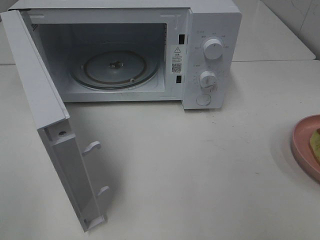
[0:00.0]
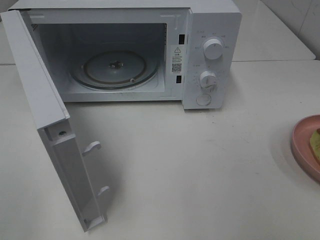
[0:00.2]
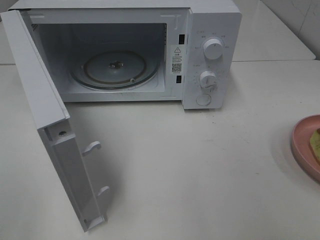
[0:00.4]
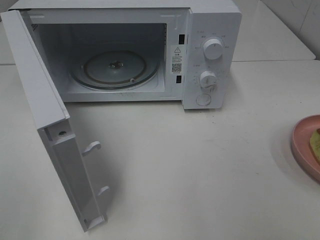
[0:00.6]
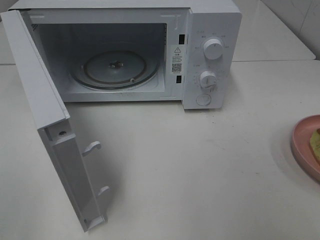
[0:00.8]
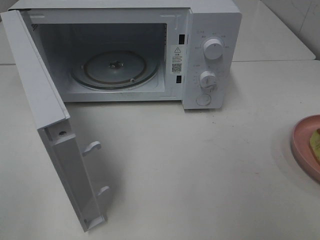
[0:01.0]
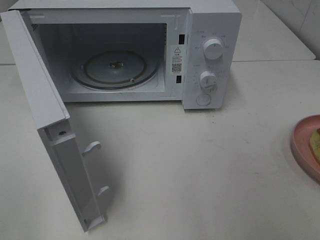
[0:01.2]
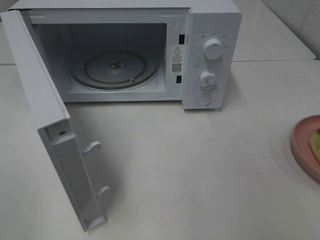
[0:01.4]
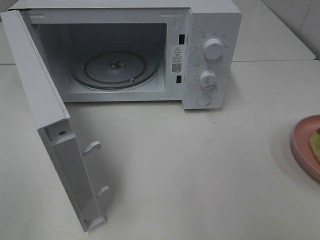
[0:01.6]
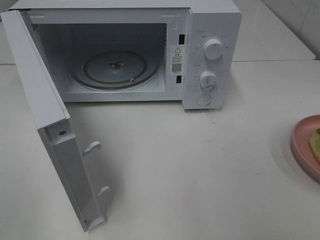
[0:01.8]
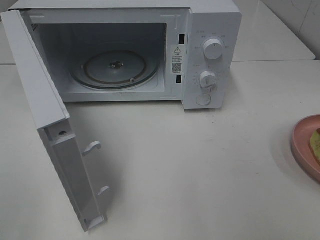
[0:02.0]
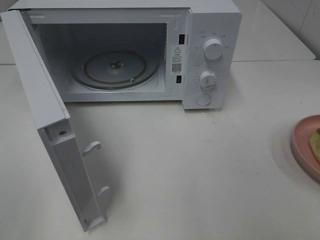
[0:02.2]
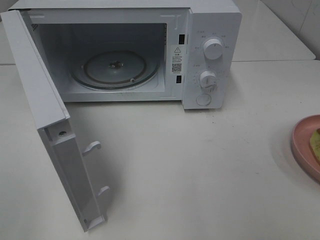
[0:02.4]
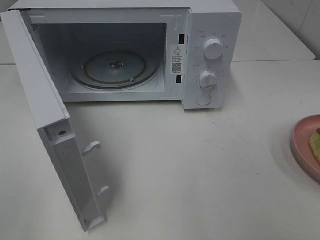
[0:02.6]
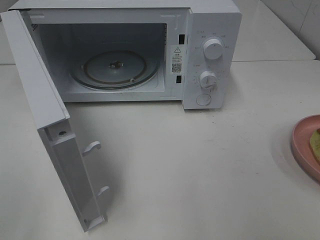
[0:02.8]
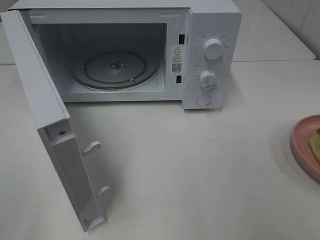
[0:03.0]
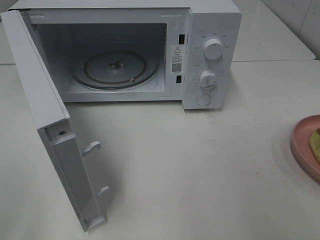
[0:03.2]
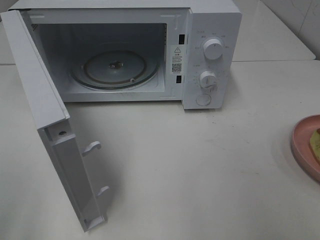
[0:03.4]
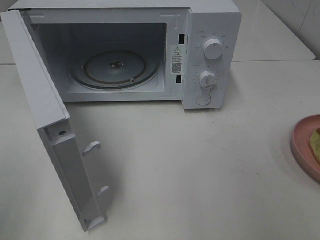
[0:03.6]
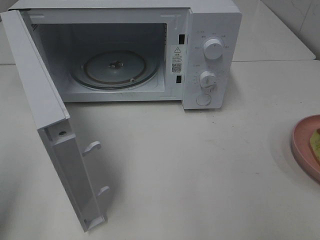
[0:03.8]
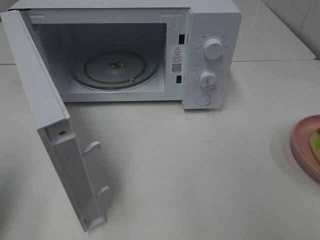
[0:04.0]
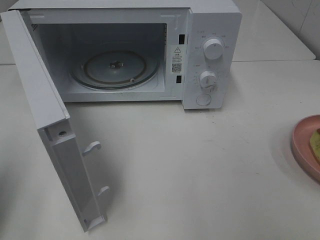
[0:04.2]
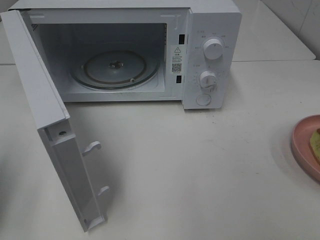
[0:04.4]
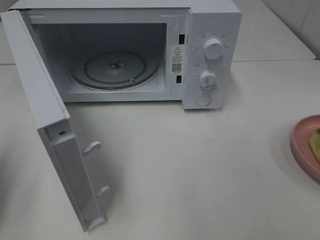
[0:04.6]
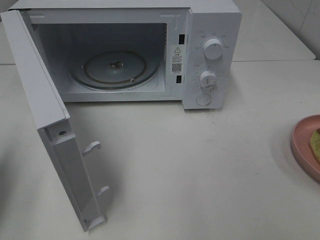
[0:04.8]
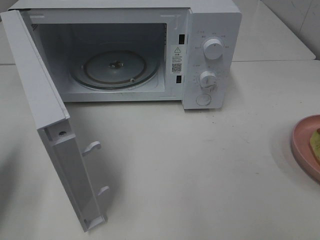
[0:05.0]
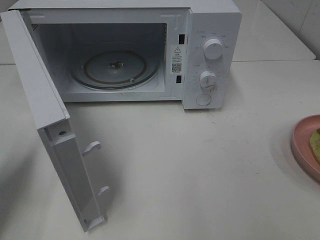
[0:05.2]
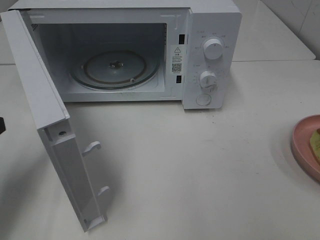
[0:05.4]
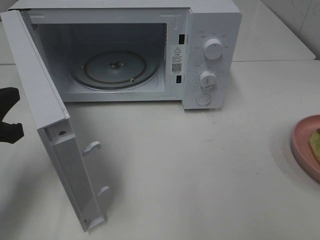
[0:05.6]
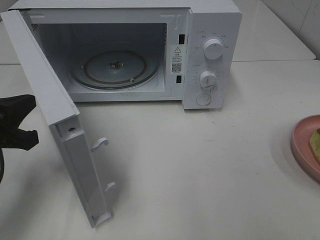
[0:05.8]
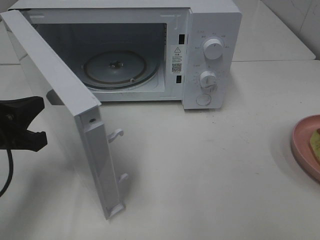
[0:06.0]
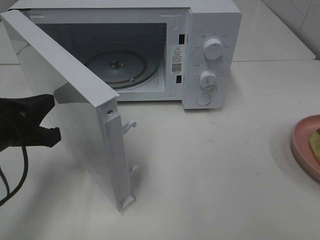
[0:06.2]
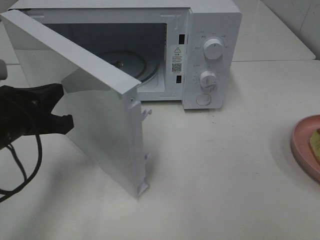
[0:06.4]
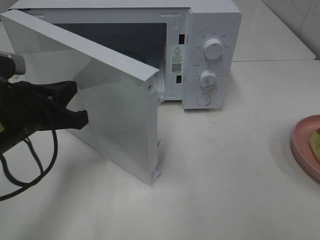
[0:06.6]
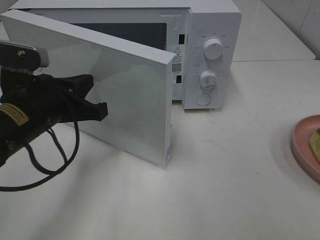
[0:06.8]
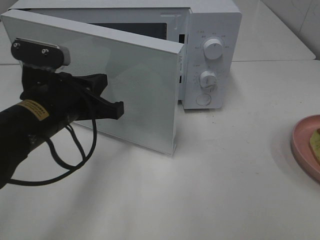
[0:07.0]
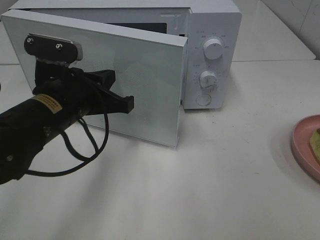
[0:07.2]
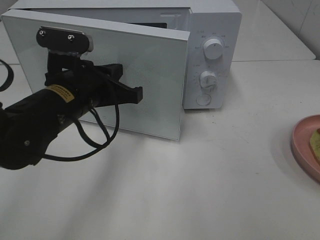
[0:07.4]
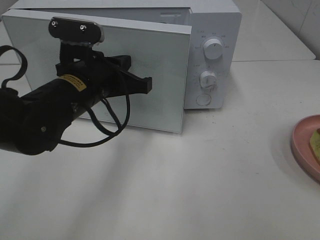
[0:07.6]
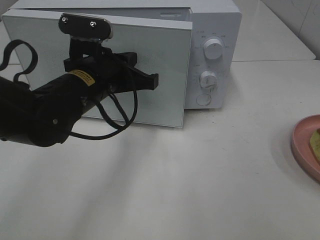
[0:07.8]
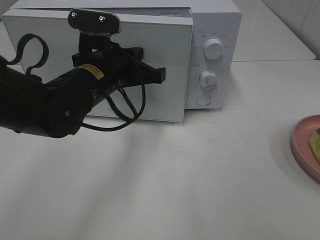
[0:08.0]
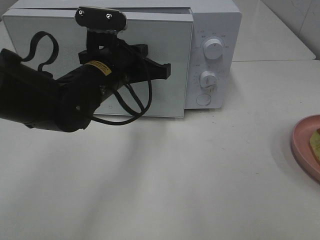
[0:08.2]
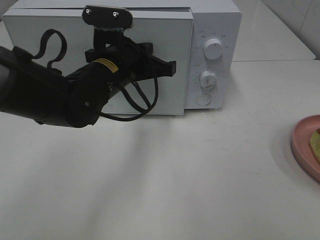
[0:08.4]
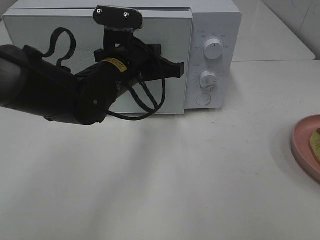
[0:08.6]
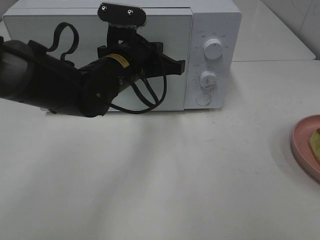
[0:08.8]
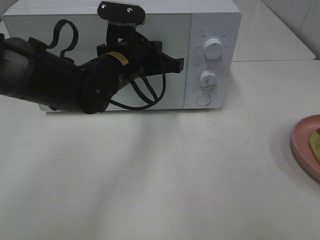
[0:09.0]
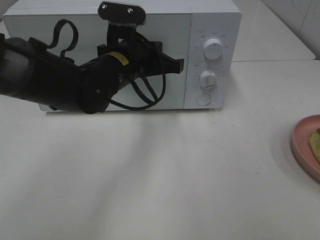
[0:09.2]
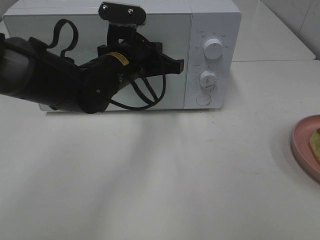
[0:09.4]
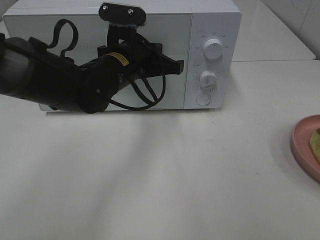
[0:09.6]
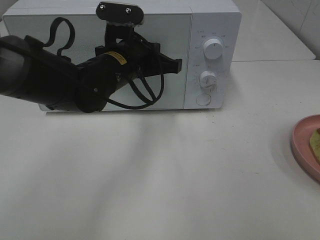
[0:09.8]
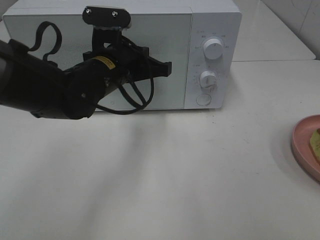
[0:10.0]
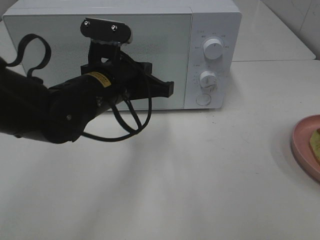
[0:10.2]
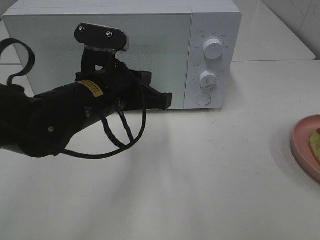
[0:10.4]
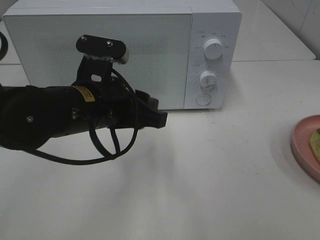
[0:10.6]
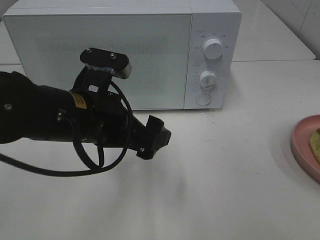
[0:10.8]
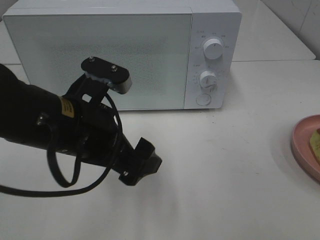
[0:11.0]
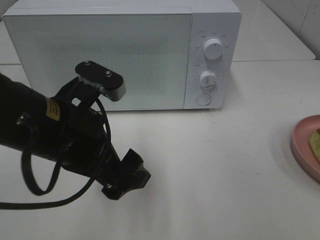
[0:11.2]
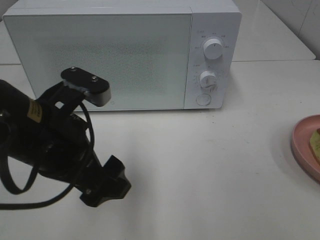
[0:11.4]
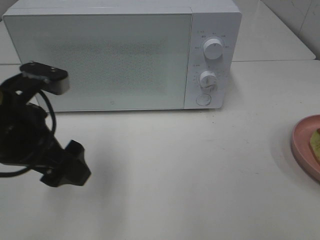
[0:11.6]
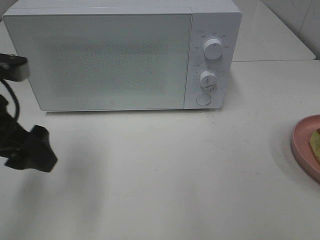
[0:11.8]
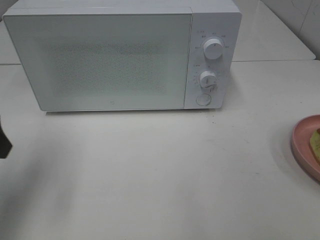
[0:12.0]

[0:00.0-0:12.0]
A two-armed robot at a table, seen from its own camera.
Task of the whole recording: Heat Sandwich.
Step, 0:00.0 to 0:10.2: Left hand: close the microwave door.
0:01.6 to 0:03.0: Neither gripper changes place.
0:03.0 to 0:04.4: The left gripper heads forward and downward, covering about 15 cm, and closes.
0:04.4 to 0:06.0: The left gripper is displaced to the right, downward and forward by about 15 cm.
0:06.0 to 0:07.6: The left gripper goes about 15 cm to the right and forward.
0:07.6 to 0:09.0: The left gripper is displaced forward by roughly 5 cm.
0:09.0 to 0:10.4: The left gripper goes some 10 cm backward.
0:10.4 to 0:12.0: The left gripper shifts approximately 20 cm to the left, and opens its fingers.

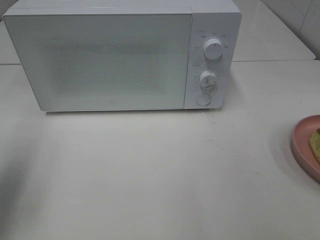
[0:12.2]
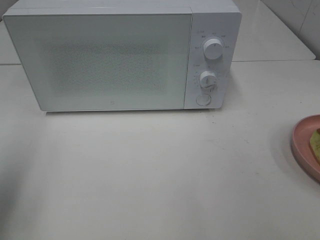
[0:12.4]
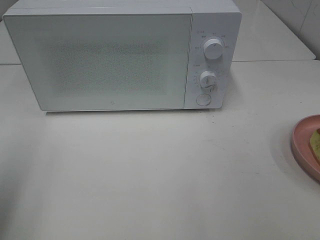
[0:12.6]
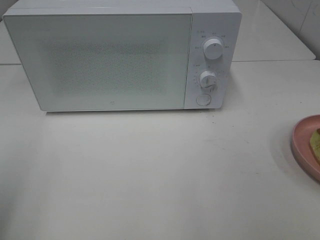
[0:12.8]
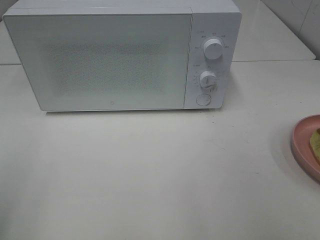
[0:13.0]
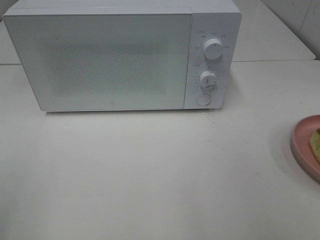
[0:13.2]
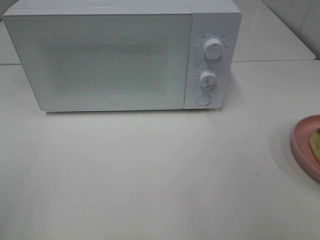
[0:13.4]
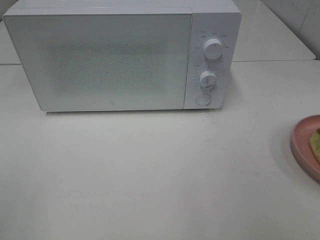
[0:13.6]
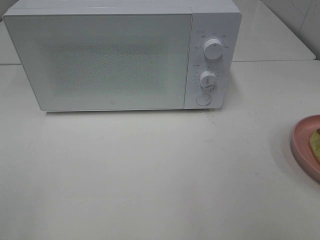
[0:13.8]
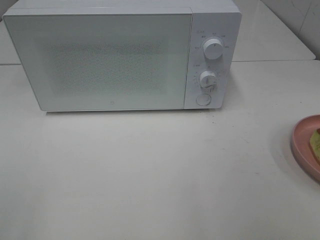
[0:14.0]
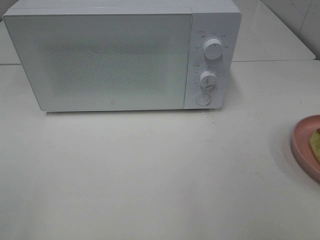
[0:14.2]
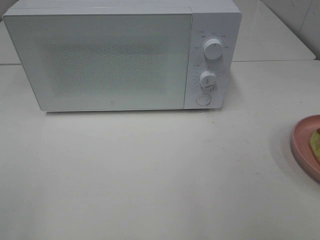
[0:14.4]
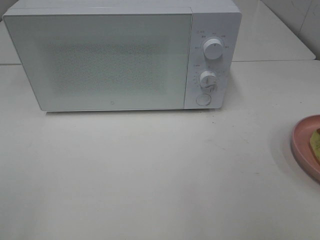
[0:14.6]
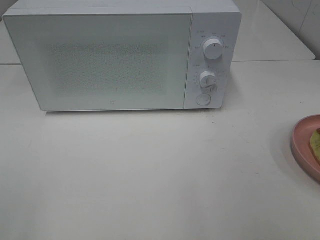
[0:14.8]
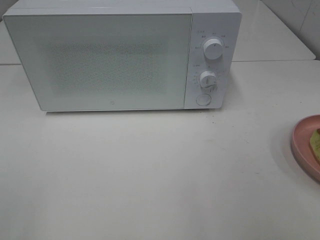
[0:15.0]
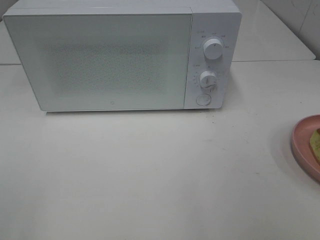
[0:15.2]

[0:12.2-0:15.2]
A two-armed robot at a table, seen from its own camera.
Task of the whole recording: Heat Sandwich.
0:12.2 to 0:13.8: The left gripper heads backward, covering approximately 20 cm.
0:13.8 to 0:15.2: Neither gripper changes place.

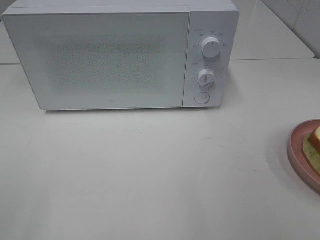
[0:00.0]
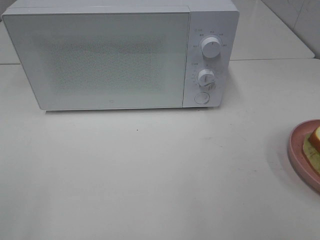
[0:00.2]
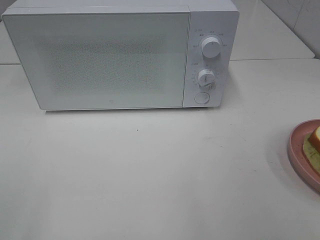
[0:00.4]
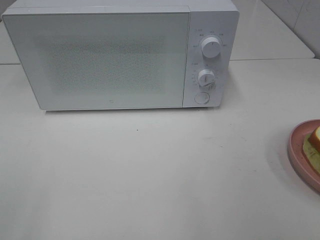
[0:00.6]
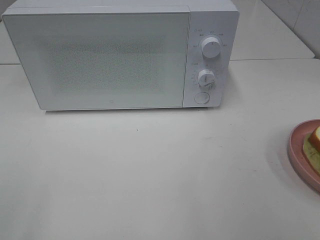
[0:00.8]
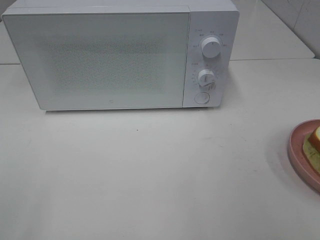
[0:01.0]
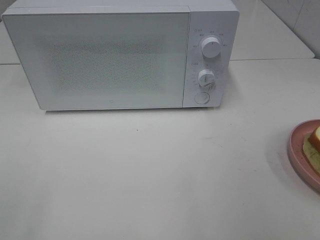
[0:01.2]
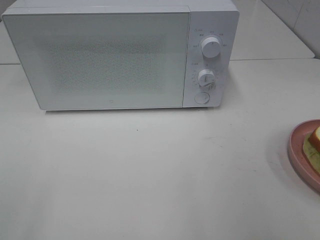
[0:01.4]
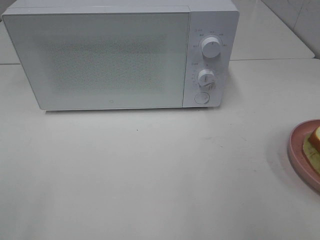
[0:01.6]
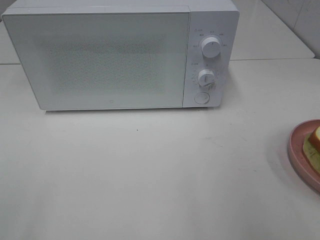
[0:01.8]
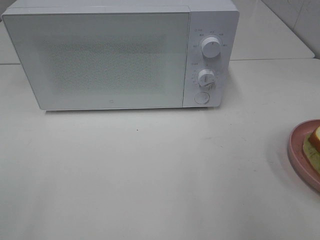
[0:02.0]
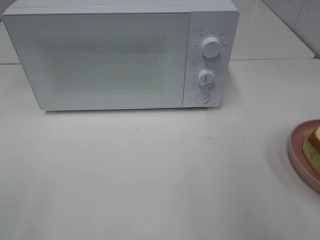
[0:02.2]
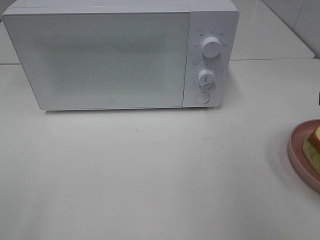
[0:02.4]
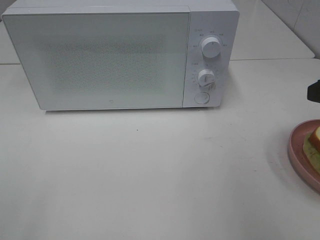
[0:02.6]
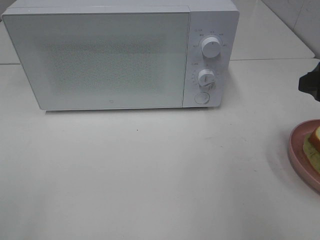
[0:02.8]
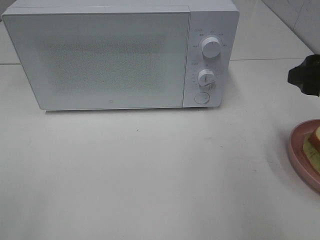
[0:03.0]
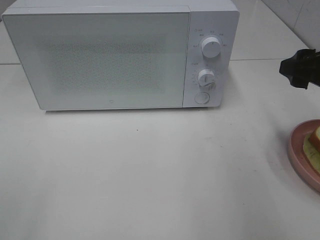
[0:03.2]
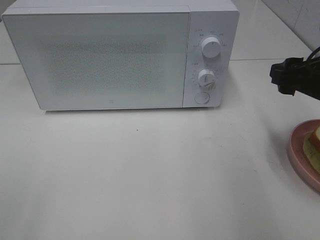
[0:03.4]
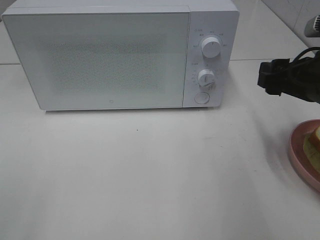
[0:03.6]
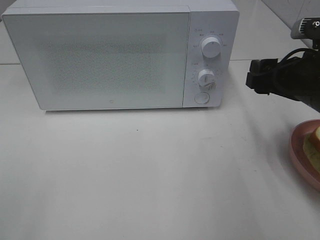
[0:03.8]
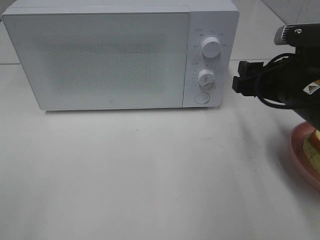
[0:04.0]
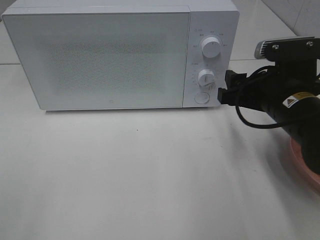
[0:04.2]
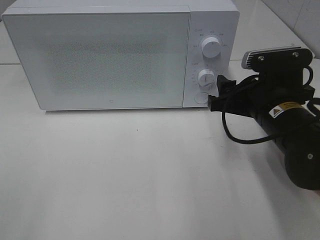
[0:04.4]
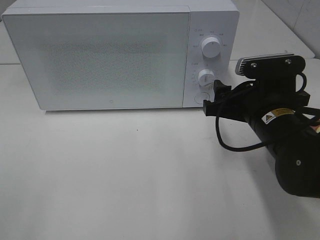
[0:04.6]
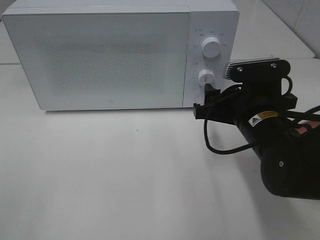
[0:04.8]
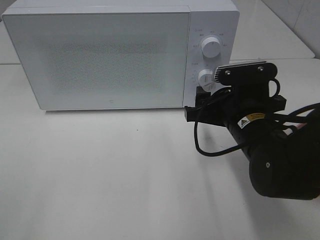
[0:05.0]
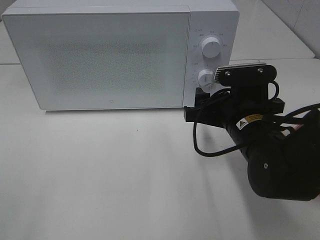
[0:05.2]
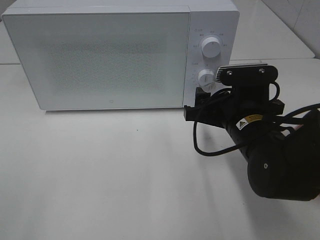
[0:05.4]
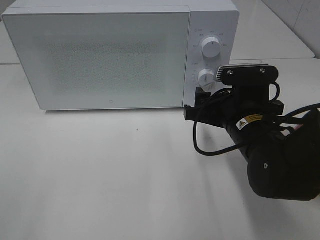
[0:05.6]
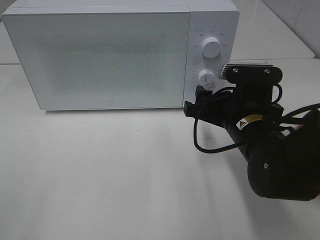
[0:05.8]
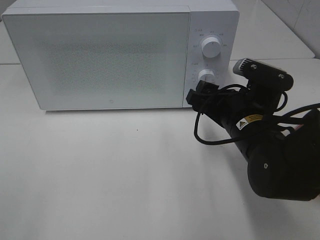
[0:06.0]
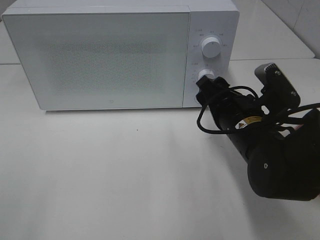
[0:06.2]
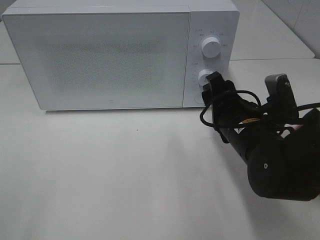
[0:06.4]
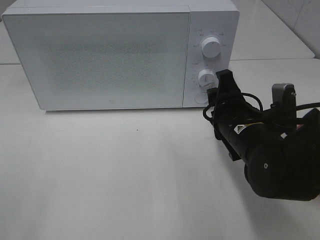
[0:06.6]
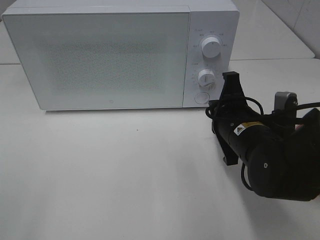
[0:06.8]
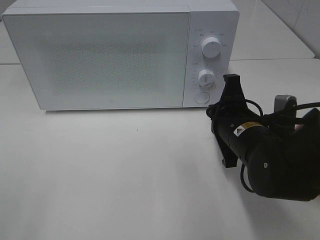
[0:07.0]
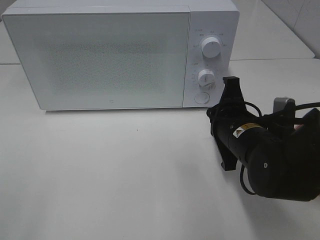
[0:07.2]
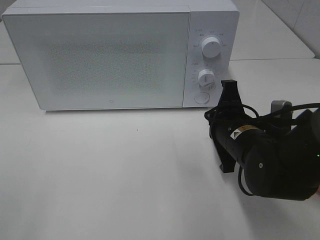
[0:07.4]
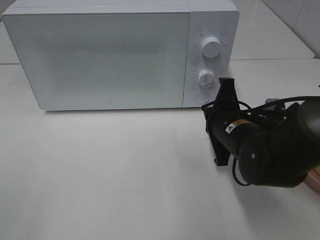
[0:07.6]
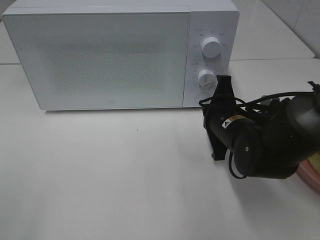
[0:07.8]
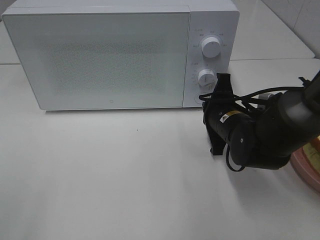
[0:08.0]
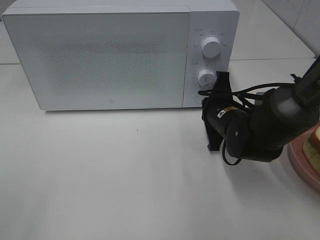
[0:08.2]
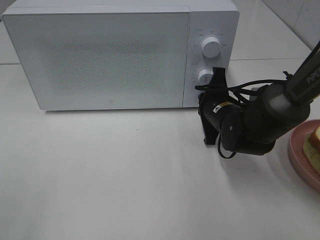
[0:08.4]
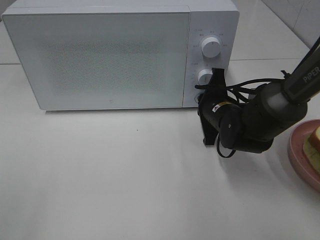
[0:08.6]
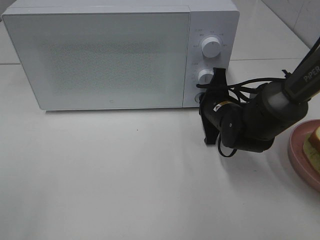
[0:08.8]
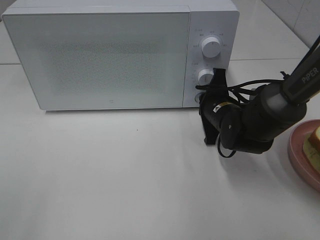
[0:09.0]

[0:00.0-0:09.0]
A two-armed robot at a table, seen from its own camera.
Task of the whole recording: Heat Sandwich.
0:01.6 to 0:03.0: The right gripper travels forward by some 15 cm.
0:03.0 to 0:04.4: The right gripper travels to the left and downward by some 15 cm.
0:06.0 to 0:07.6: The right gripper closes its fingers.
0:07.6 to 0:09.0: The right gripper heads forward, covering about 10 cm.
